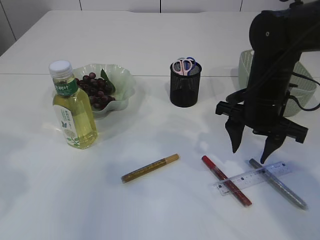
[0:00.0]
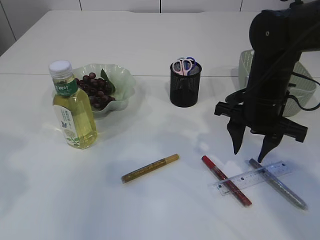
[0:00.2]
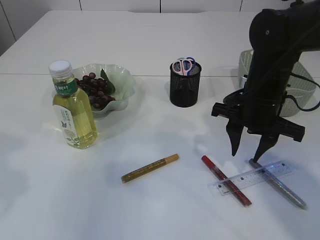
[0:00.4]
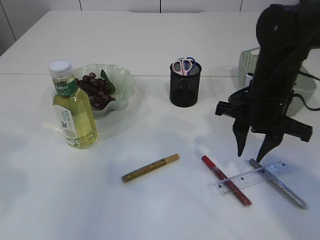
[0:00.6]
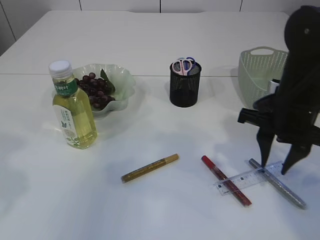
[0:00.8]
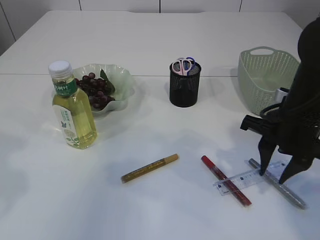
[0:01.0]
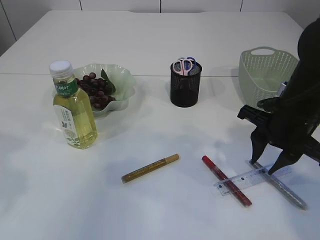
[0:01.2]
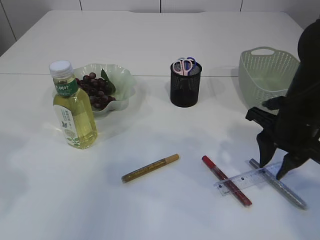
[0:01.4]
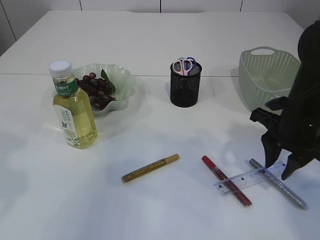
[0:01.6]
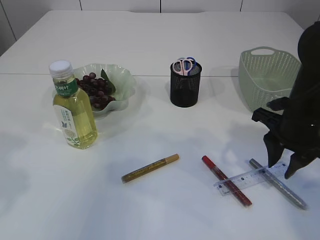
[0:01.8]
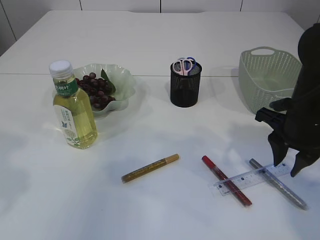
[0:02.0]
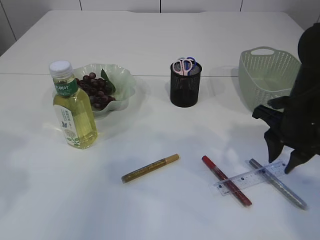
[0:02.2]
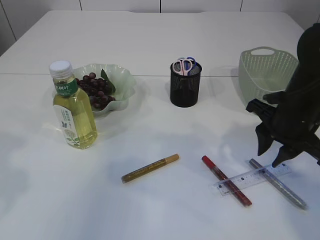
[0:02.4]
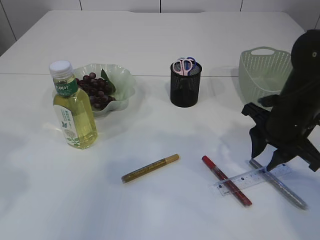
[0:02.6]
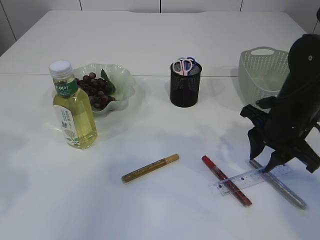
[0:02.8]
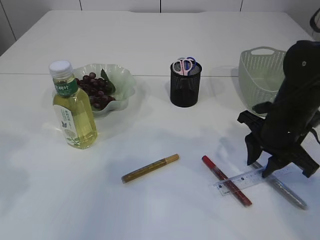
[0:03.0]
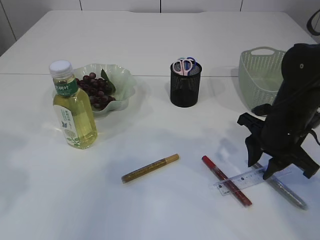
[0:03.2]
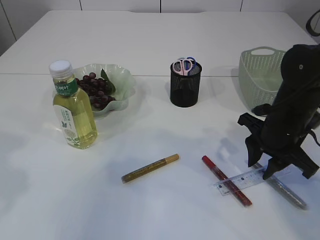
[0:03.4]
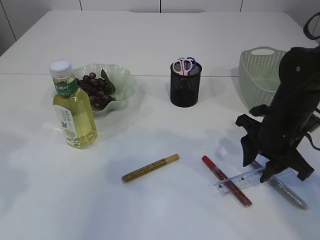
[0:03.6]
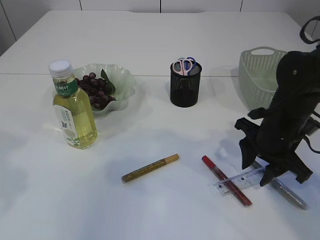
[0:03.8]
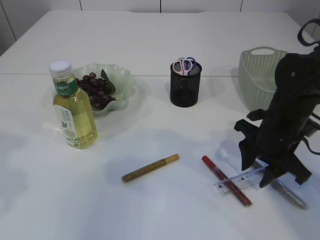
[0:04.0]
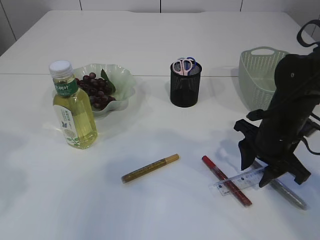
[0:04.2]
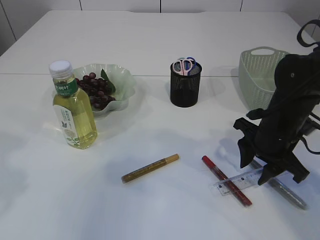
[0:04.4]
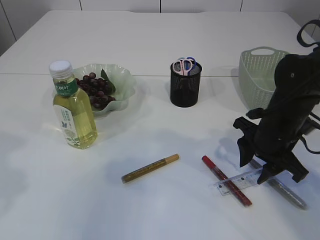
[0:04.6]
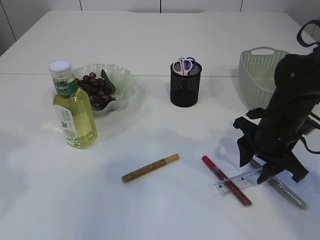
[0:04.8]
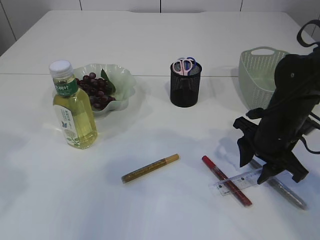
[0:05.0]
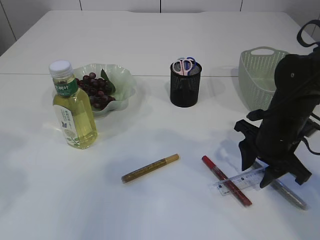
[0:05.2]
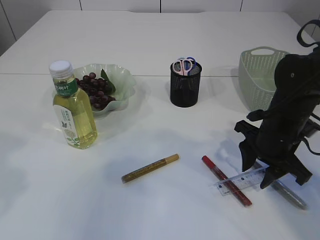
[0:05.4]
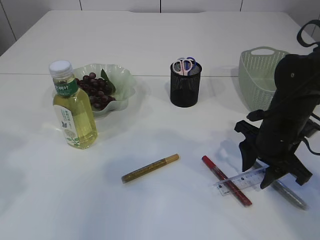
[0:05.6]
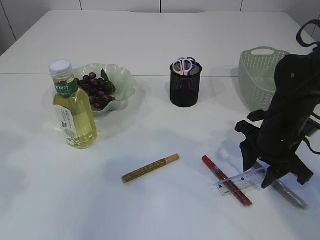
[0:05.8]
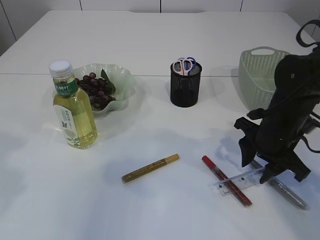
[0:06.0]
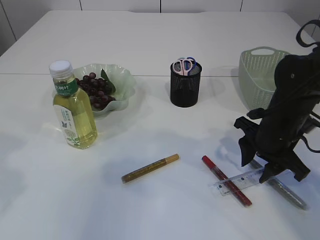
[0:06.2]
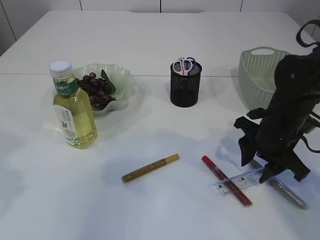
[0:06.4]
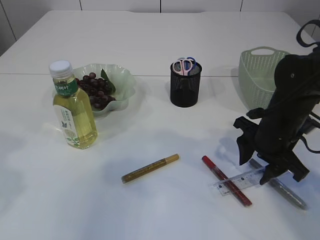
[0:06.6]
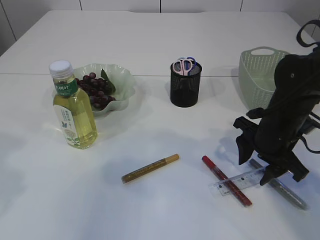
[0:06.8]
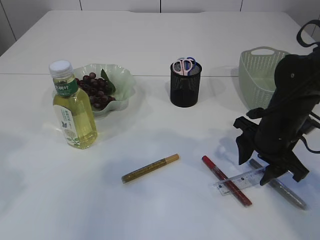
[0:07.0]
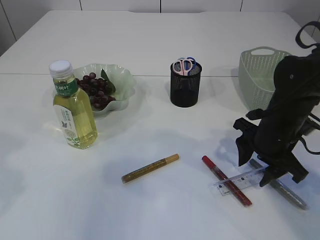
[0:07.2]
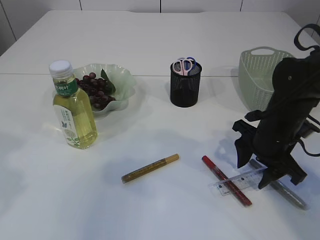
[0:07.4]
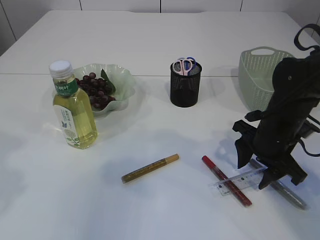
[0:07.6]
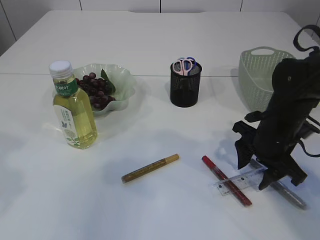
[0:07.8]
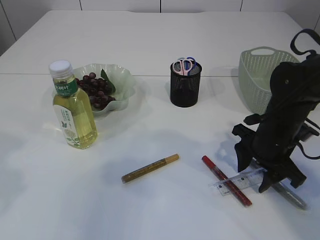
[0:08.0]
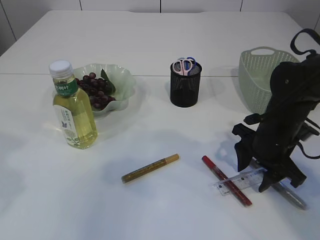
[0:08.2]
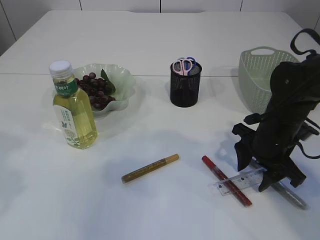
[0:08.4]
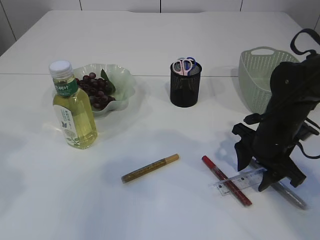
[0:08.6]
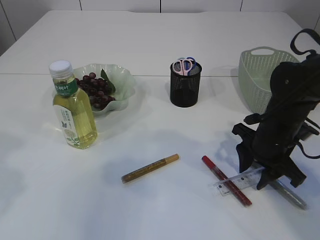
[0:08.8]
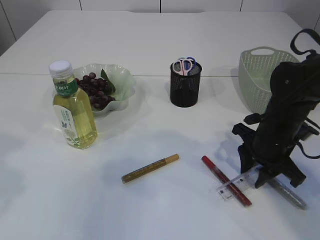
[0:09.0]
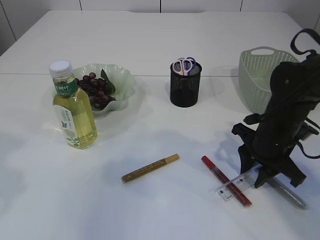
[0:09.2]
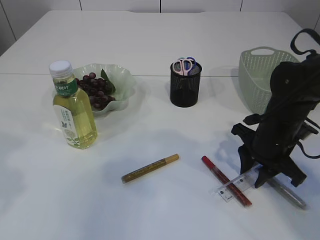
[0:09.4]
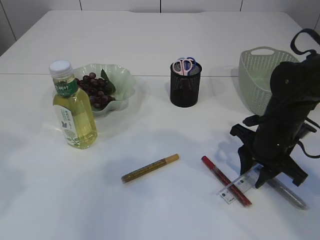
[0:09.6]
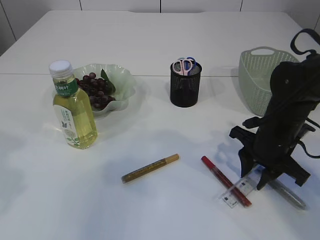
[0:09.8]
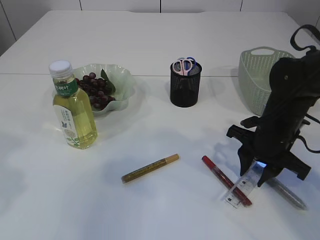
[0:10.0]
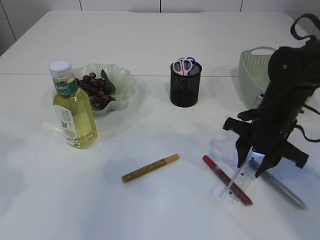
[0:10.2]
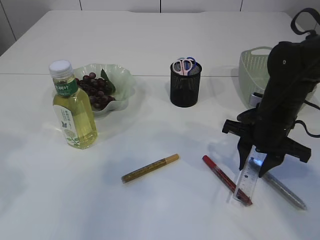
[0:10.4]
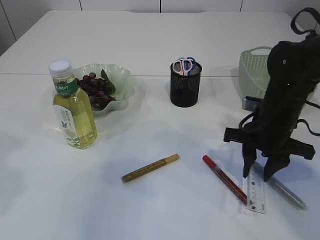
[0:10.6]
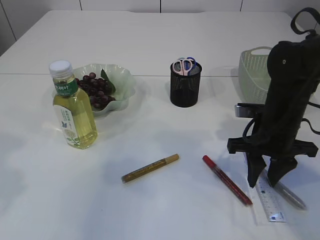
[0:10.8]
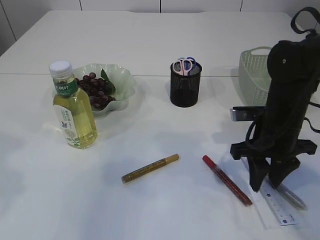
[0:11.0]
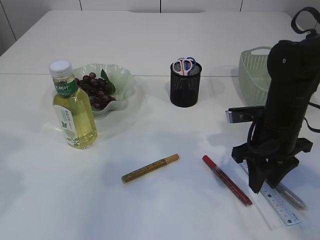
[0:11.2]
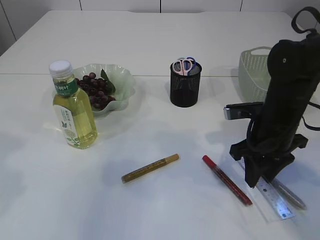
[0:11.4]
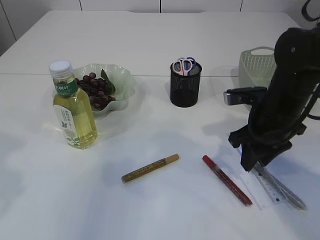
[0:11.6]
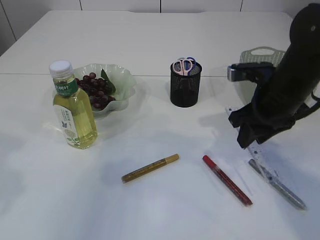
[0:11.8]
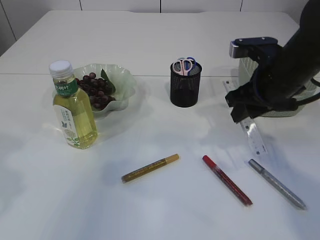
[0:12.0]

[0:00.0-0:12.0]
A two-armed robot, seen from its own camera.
Step, 0:00.0 to 0:11.8: pick up the ruler.
0:00.0 to 0:01.6: The right gripper ends up roughly 5 cm from where it was, and closes.
0:01.6 to 0:04.4: The grippers move only a little.
0:04.4 to 0:09.0: Both grippers stay put.
0:10.4 to 0:12.0: The right gripper moves upward, roughly 10 cm.

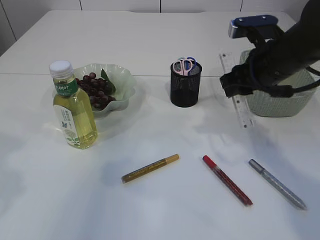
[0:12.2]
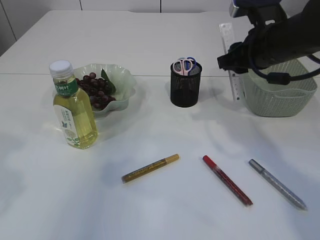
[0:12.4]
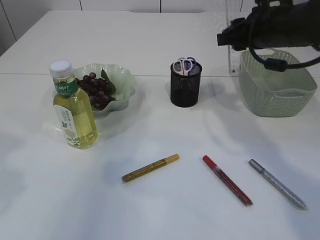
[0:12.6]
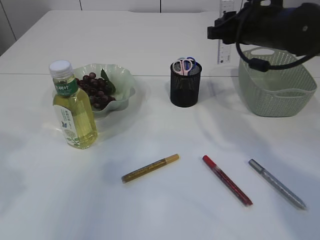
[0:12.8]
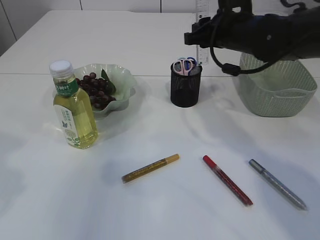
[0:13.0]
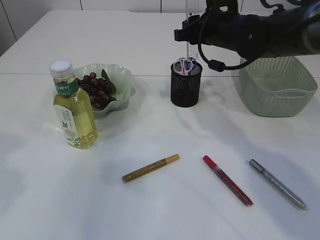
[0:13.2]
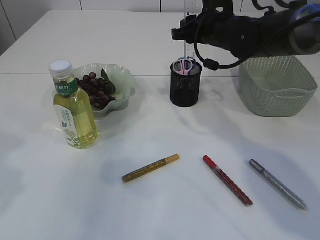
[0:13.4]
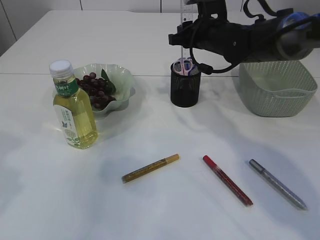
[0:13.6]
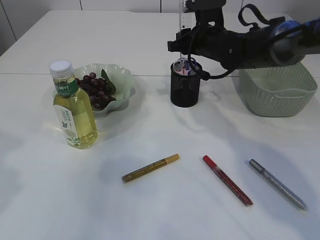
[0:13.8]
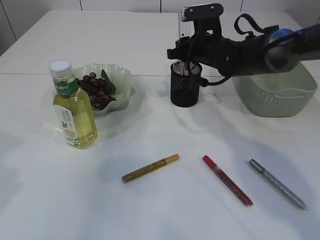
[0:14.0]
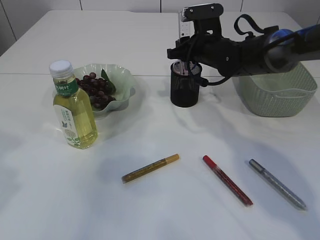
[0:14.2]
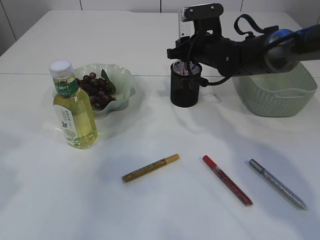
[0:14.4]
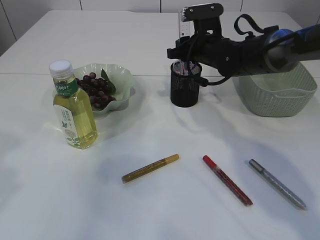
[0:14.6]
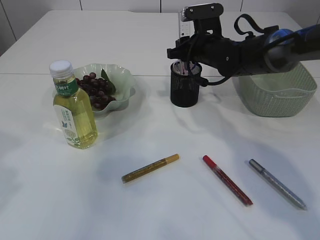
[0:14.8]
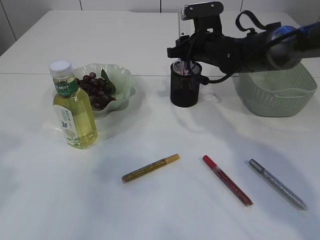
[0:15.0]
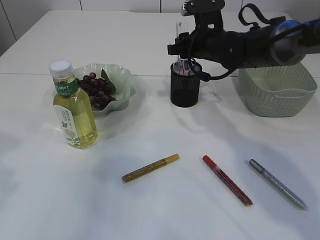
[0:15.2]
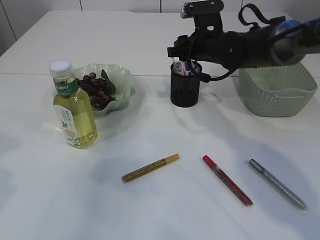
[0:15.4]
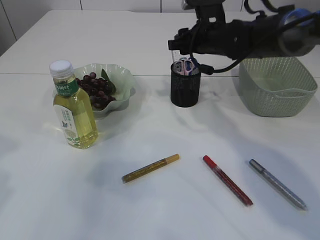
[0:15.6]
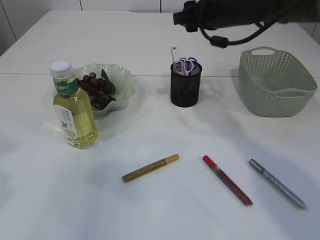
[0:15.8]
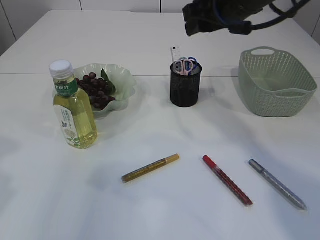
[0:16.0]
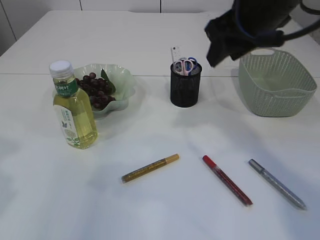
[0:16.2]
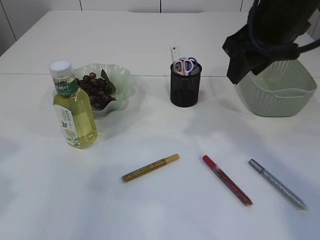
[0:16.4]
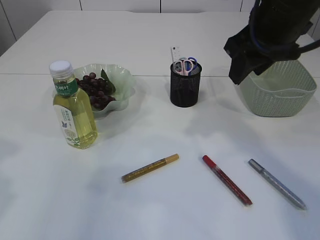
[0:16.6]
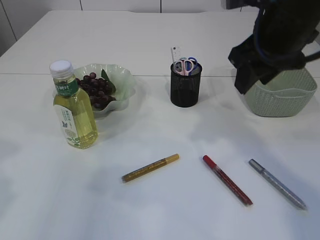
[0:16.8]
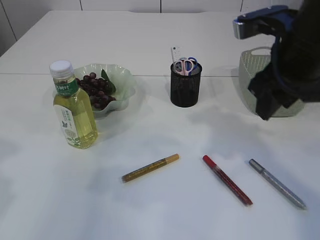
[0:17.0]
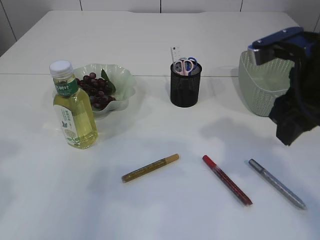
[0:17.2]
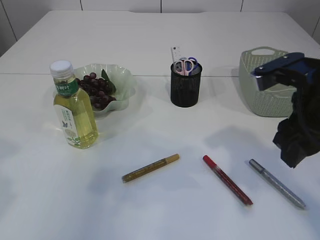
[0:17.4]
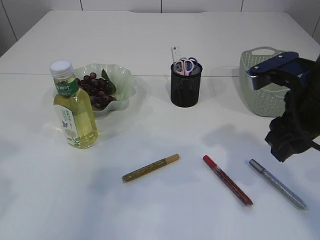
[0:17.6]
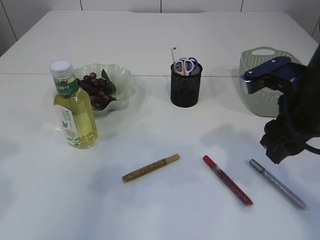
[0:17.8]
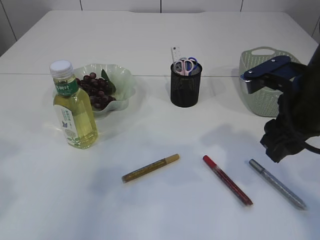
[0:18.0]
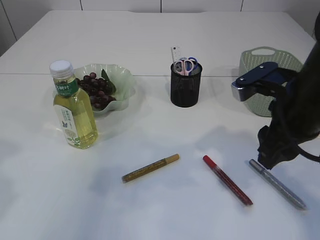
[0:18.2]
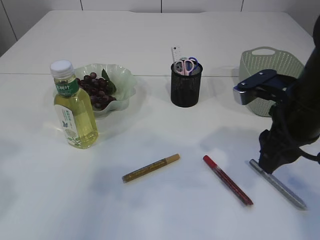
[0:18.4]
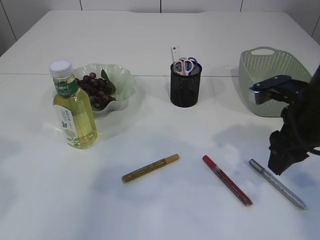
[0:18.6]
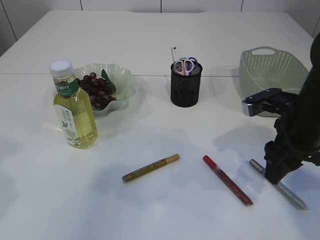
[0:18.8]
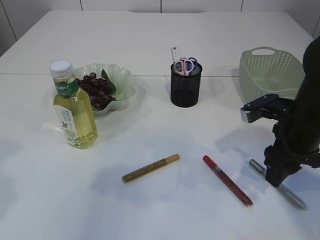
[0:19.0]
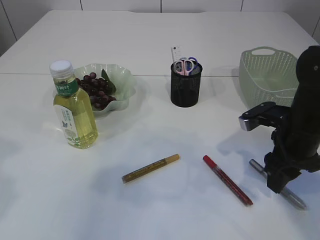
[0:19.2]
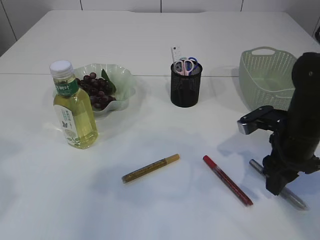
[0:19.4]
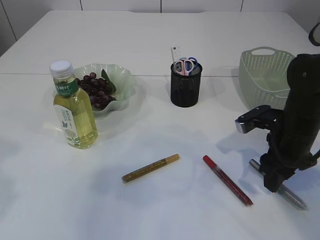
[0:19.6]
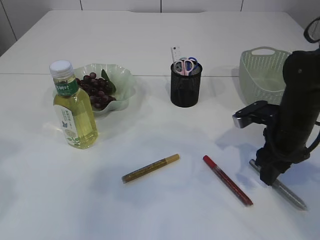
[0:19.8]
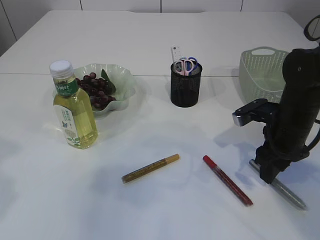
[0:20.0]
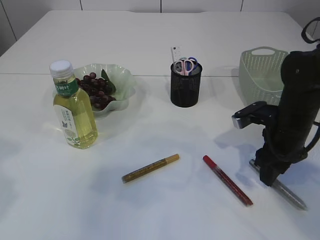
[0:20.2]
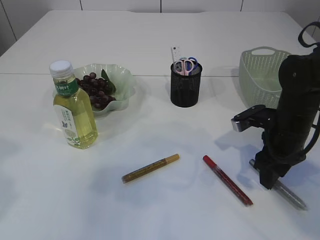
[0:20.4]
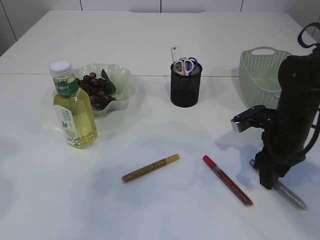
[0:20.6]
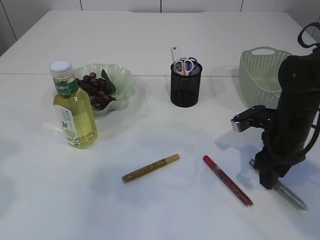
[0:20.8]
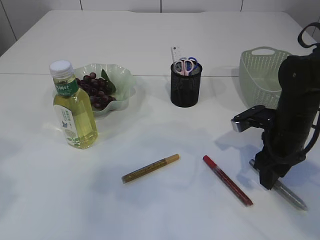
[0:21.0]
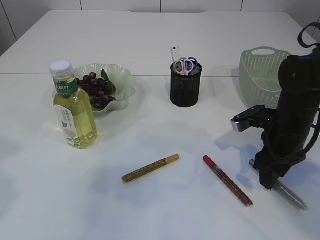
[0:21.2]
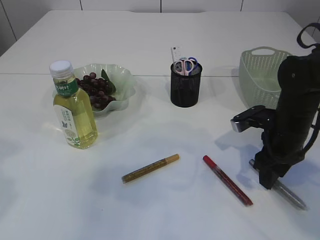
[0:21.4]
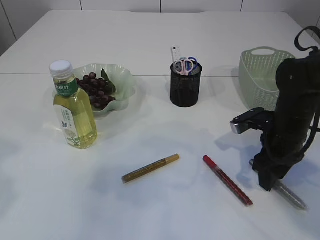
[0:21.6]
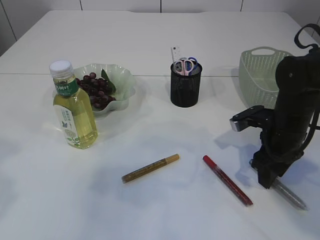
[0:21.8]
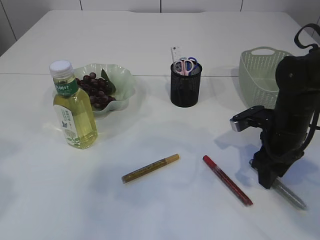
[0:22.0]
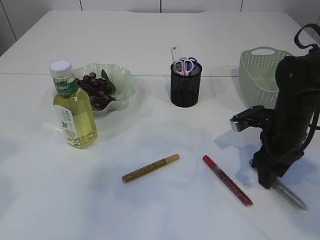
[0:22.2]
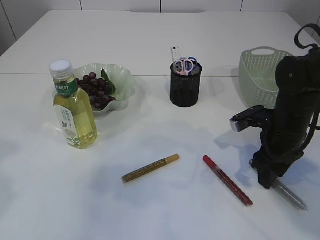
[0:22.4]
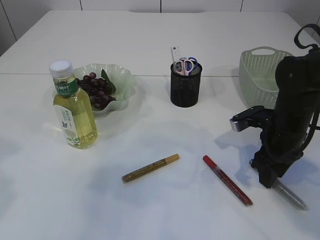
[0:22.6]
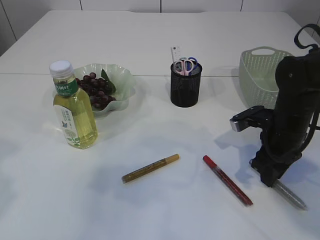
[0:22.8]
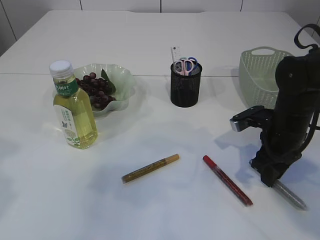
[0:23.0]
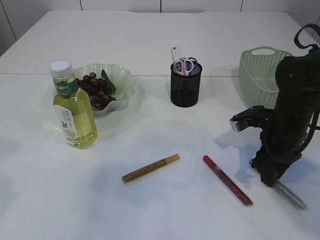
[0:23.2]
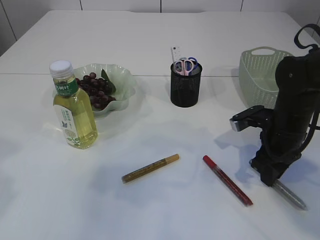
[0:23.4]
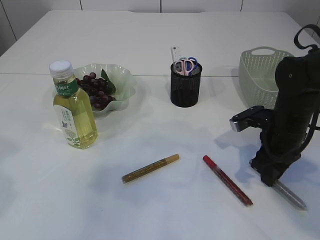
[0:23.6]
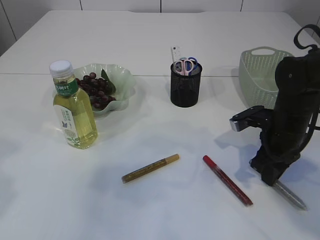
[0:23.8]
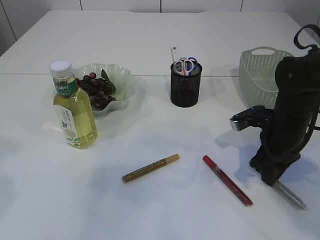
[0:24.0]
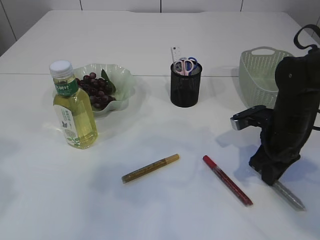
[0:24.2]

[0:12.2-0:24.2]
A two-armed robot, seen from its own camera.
Step, 0:12.2 to 0:16.4: Place the ruler into the pen holder.
0:12.2 to 0:13.8: The right gripper moves forward and to the left, approximately 15 cm.
0:13.8 to 0:15.2: There are only small adjustments of the grippers.
0:15.2 to 0:16.6: The right gripper heads backward and upward, covering some 20 cm.
0:16.6 to 0:18.2: The right gripper shifts roughly 10 cm downward and backward.
0:18.2 to 0:19.8: The right gripper is displaced downward and forward by some 10 cm.
0:19.8 to 0:21.2: The two grippers keep their place.
0:21.2 to 0:22.6: Neither gripper changes place.
0:22.6 to 0:24.2: The right gripper closes.
